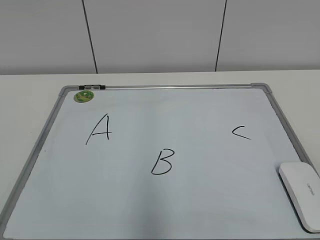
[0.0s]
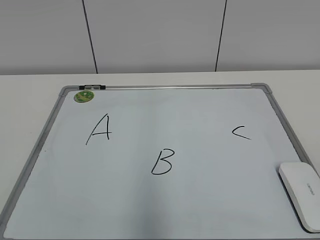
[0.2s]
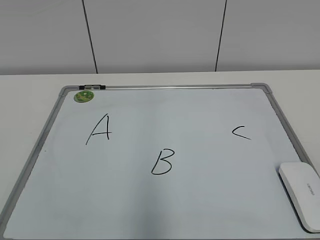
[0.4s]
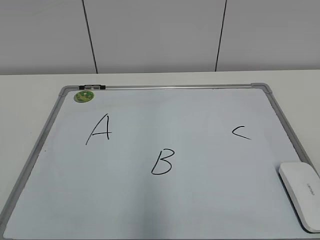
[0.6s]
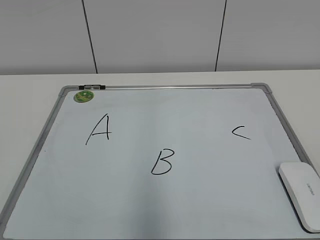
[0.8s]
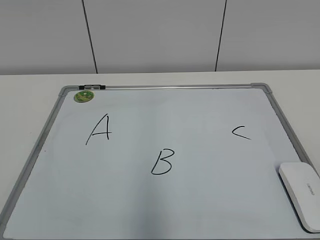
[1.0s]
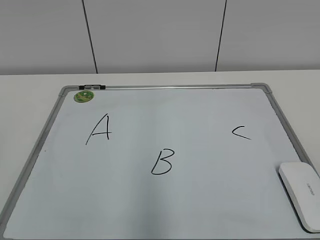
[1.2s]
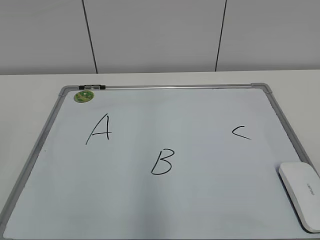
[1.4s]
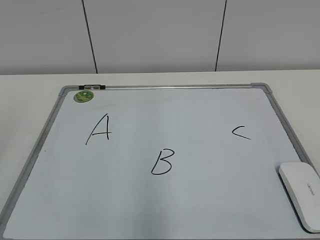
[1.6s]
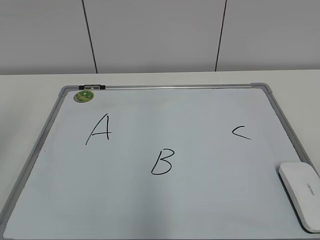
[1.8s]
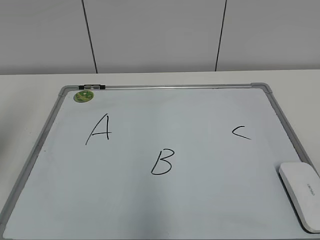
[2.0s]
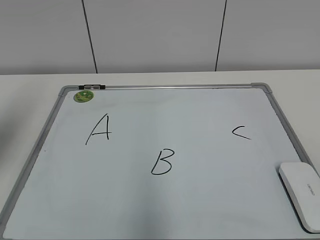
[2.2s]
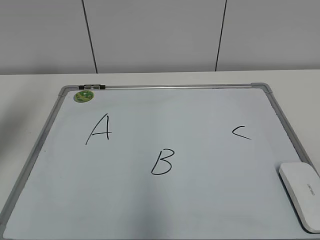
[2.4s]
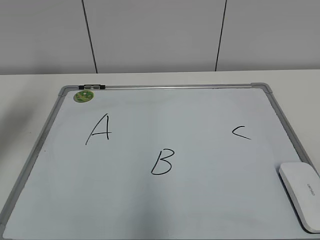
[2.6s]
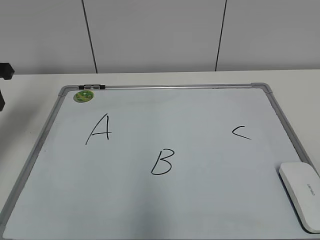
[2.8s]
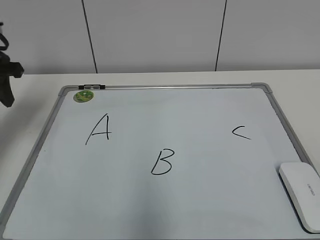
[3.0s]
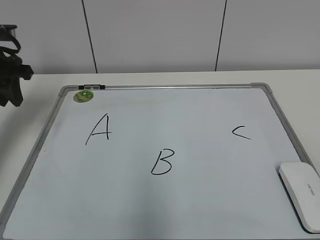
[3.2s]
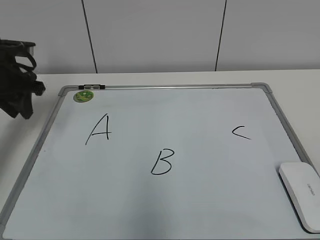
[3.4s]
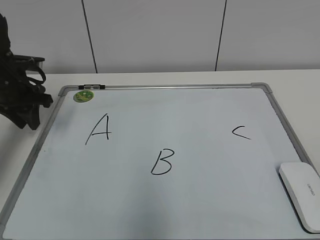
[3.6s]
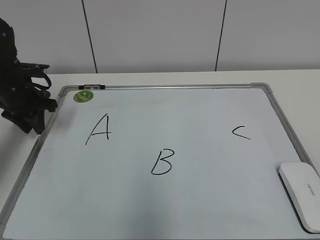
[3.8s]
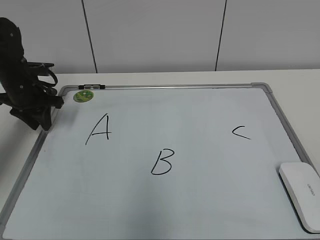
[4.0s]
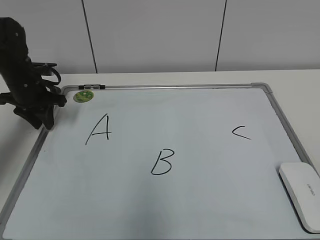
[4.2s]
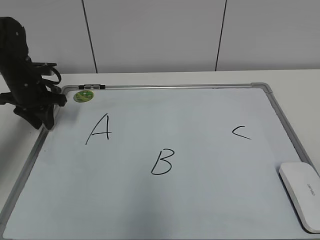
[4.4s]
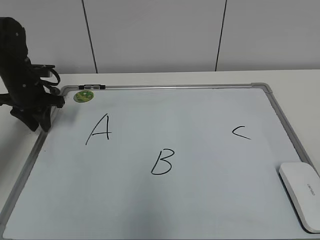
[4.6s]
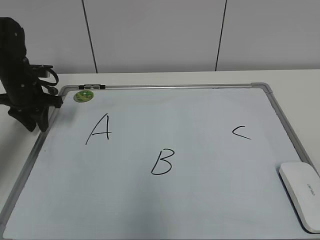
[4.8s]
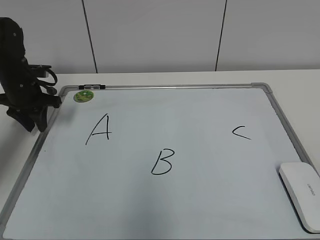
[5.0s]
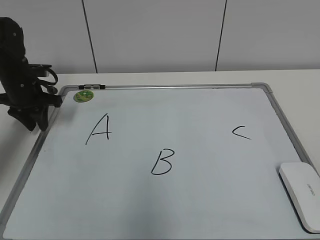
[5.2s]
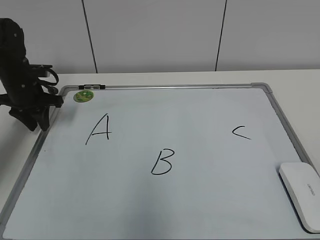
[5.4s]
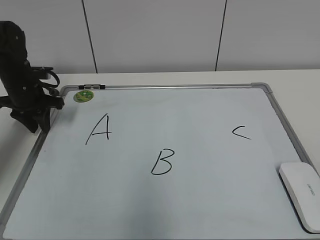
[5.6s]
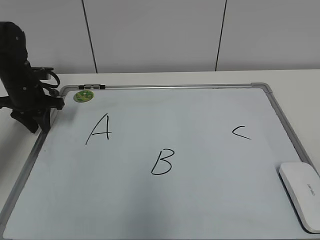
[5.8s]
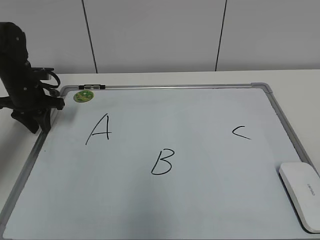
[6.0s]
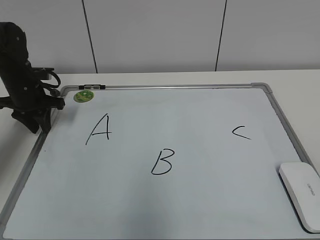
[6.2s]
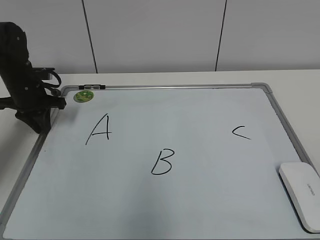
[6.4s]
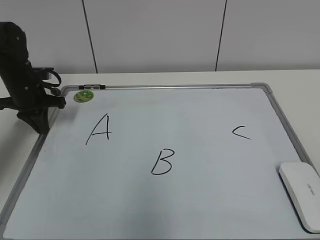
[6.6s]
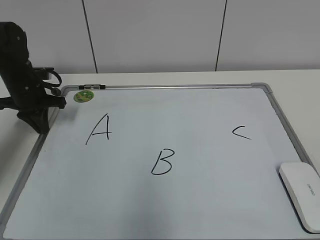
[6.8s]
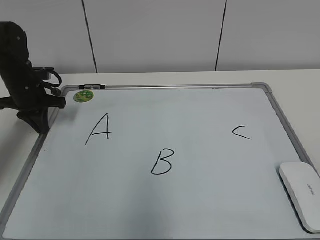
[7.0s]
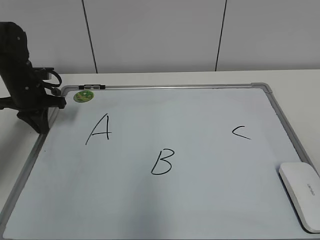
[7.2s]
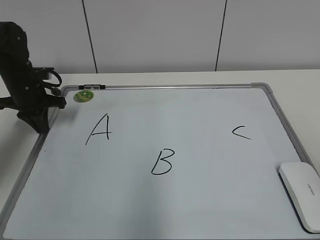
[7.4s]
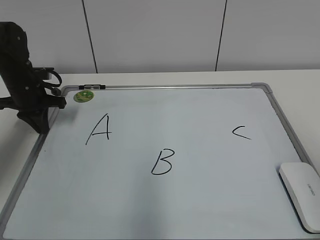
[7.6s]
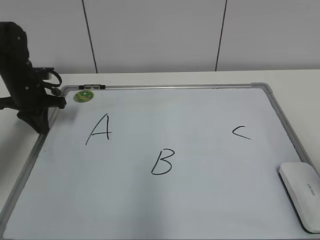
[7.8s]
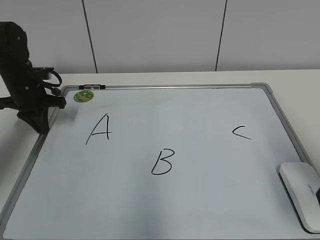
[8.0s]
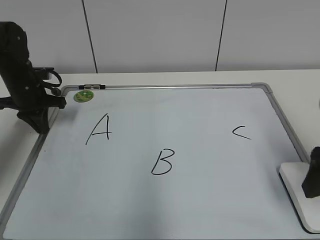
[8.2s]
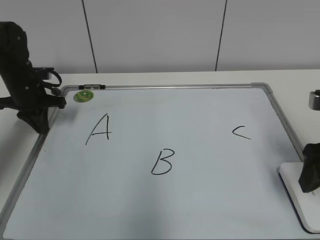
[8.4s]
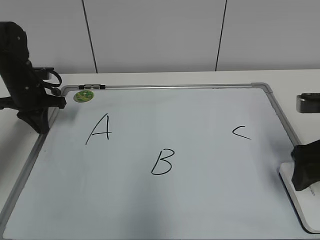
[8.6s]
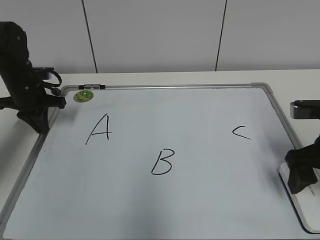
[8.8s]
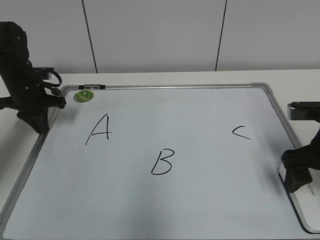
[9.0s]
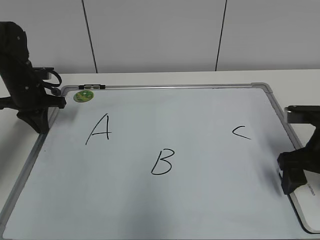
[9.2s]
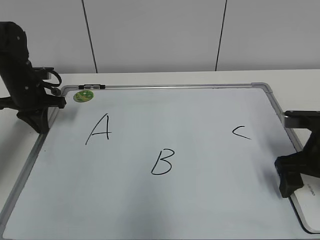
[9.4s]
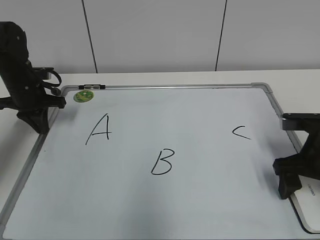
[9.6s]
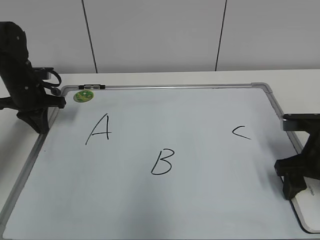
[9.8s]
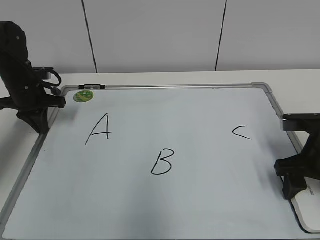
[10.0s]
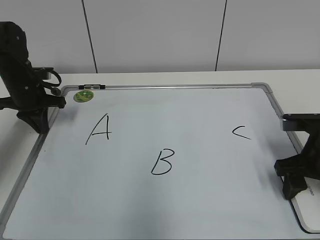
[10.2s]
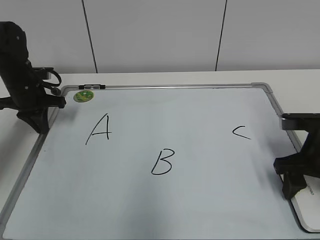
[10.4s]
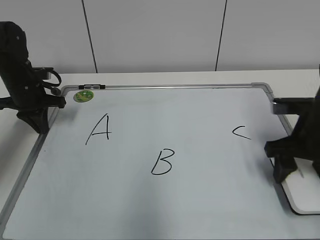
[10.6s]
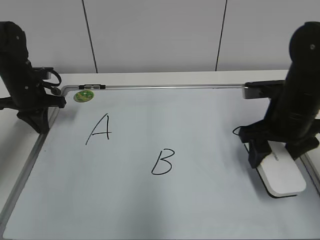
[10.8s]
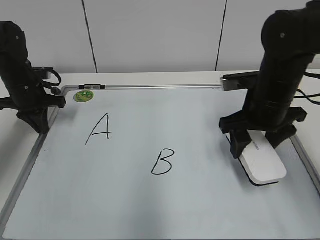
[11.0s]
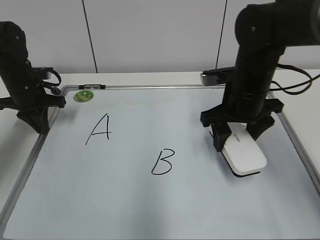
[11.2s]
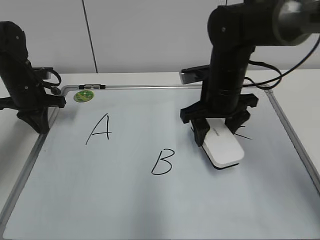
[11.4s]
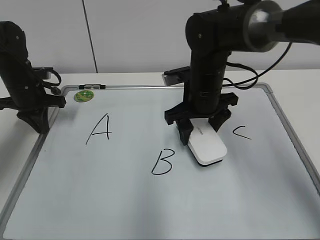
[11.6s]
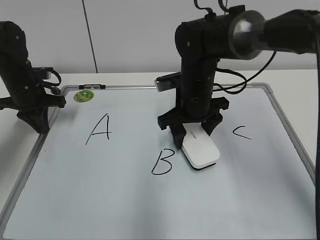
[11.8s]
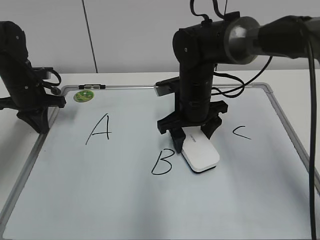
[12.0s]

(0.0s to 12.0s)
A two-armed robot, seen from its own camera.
Task of the whole recording: pick up the eraser on the blackboard and erase the letter "B".
Step, 0.0s - 6.4s: Hold the drawing board steady with your left hand.
Step, 6.6s - 10.2s: Grab the eraser with your right hand.
1.6s - 3.0s: The left gripper moves forward, approximately 30 cm.
3.0s - 4.4s: The left gripper heads downward and forward, covering approximately 15 cm.
4.4s - 6.0s: Both grippers stay put.
6.0s - 7.6s: The left gripper closes up.
7.6s - 9.0s: The right gripper shifts roughly 20 cm forward and downward, and opens up.
9.0s - 10.4s: The right gripper closes up.
10.4s - 12.0s: The right gripper moves to the left and forward, about 20 cm.

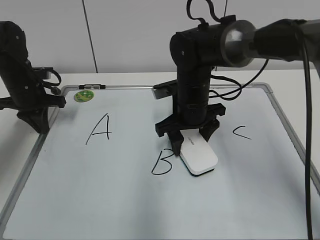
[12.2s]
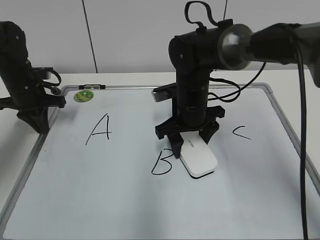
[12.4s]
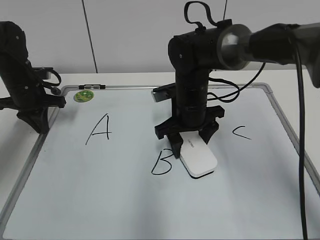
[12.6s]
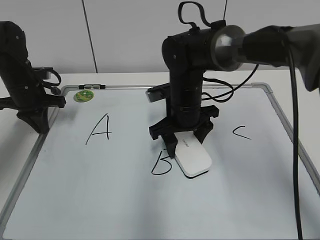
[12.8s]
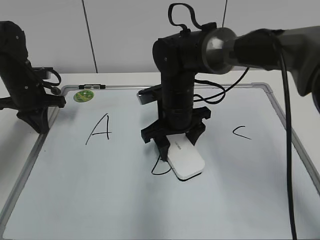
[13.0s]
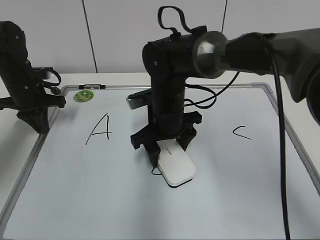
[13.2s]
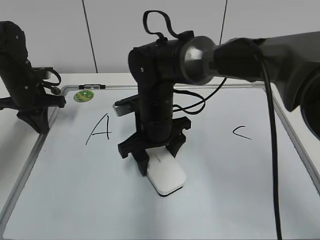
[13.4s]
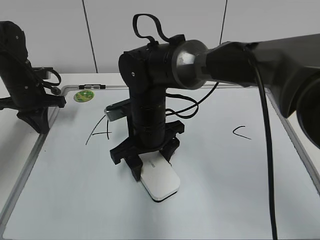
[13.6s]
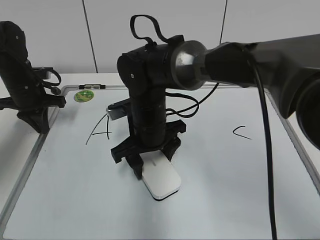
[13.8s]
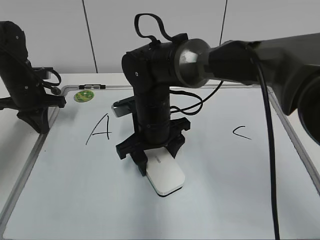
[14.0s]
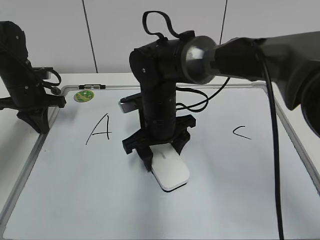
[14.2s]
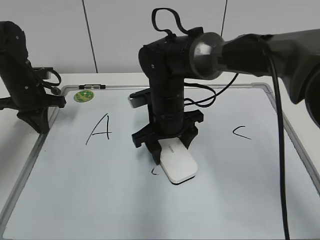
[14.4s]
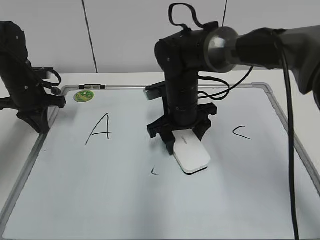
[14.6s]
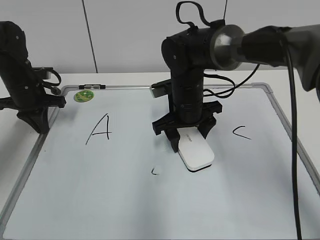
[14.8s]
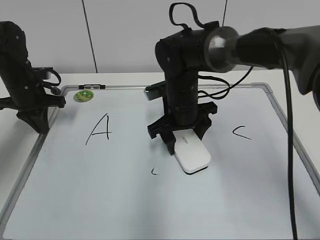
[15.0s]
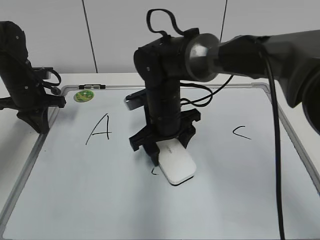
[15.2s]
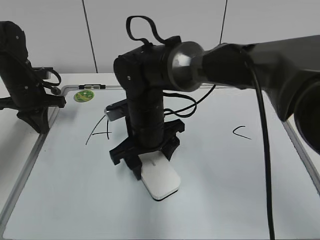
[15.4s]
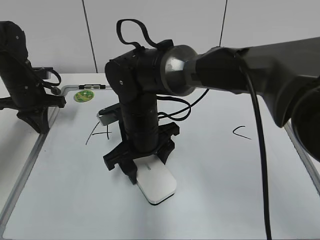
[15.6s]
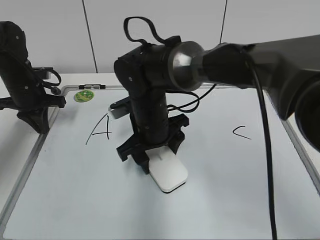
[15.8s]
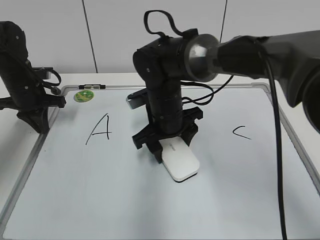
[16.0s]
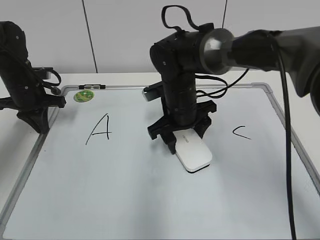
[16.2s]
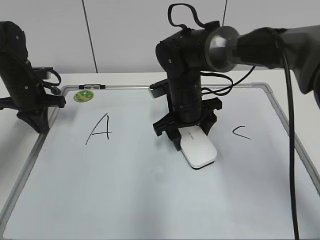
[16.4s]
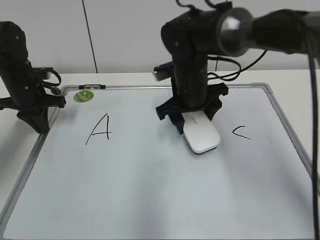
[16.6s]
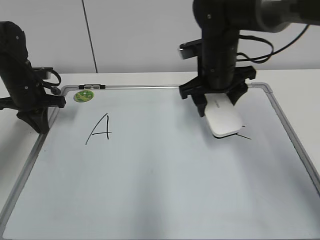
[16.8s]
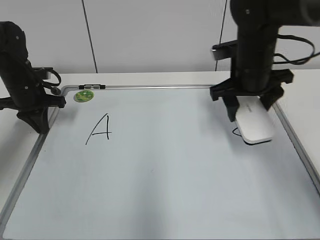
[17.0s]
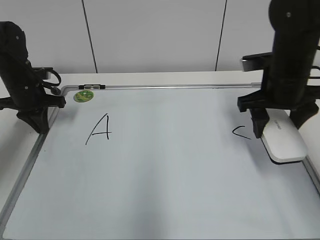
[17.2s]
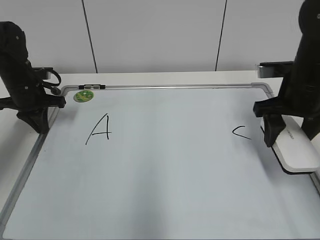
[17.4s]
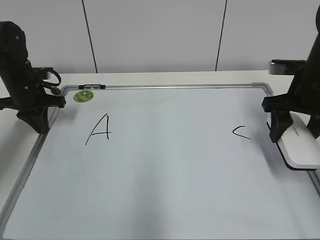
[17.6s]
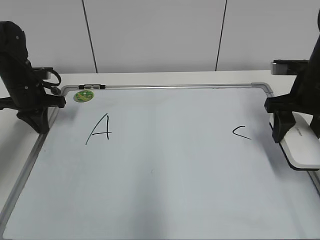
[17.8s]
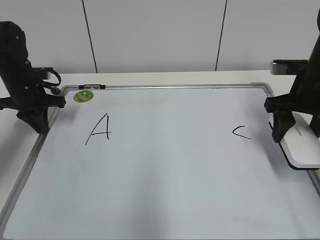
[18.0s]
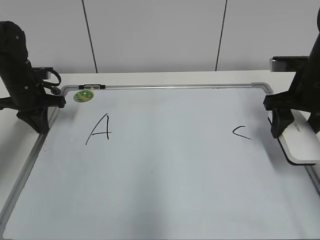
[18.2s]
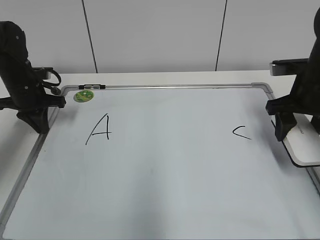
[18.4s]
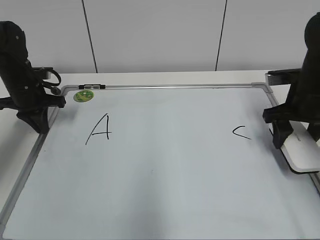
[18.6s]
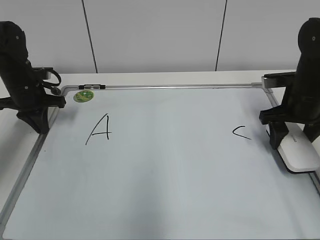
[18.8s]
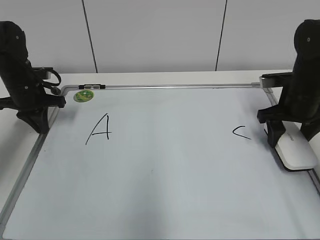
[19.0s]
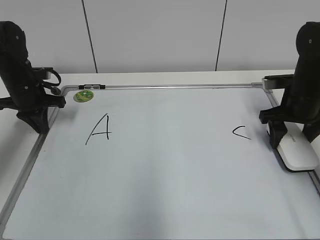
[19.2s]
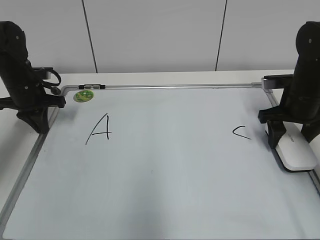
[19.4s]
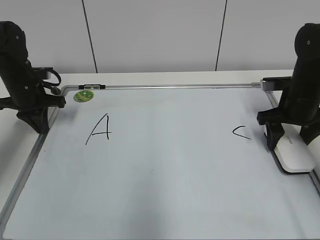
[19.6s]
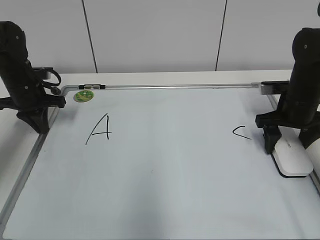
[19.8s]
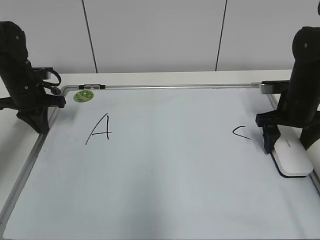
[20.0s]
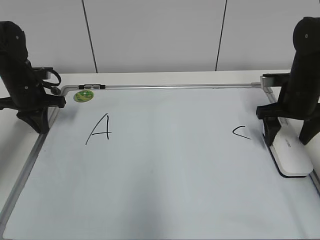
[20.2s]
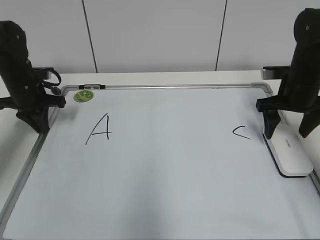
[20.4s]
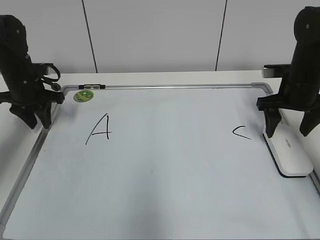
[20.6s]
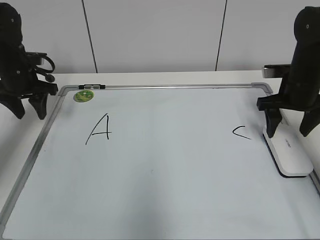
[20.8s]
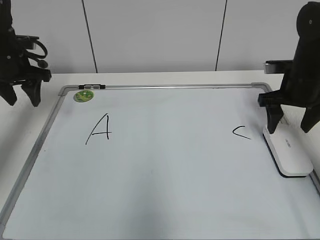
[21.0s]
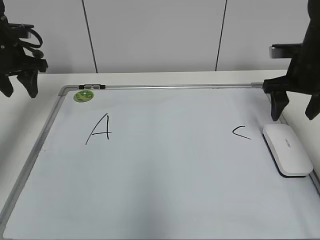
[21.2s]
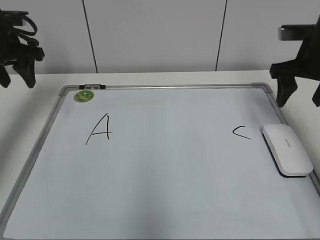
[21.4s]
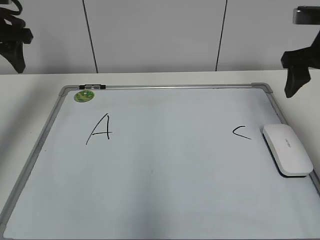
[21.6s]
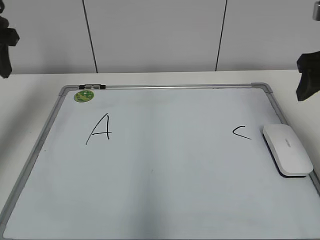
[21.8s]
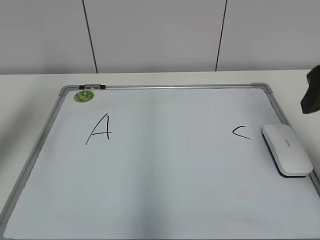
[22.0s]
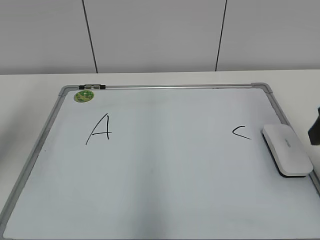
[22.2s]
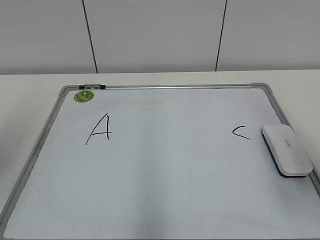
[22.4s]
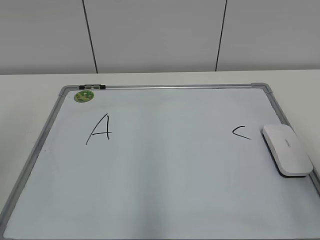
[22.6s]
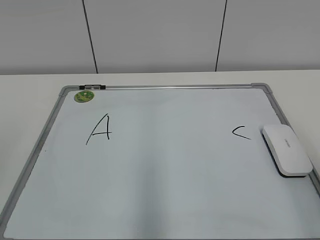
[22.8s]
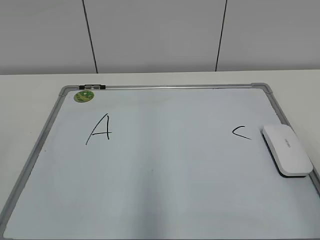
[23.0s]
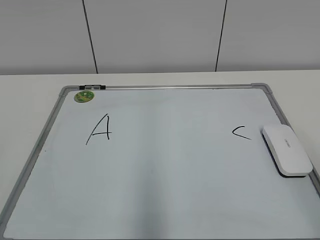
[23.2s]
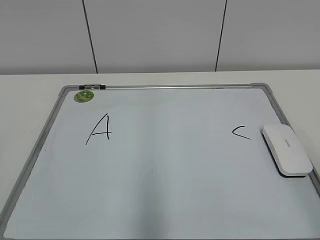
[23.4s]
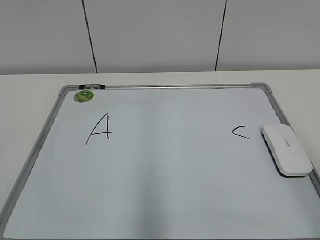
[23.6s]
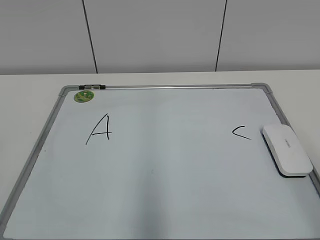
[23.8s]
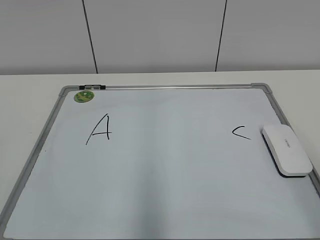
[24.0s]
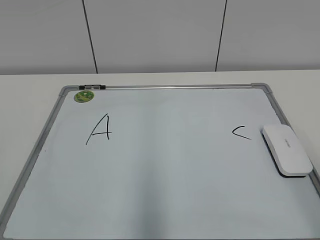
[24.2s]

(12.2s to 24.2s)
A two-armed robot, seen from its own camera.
Task of the whole recording: pick up the eraser on the blackboard and erase the letter "B".
Step, 12.2s - 16.2s: Erase the letter B with your right hand.
Step, 16.4s - 20.0s: Put down the eraser with your right hand.
12.2s - 13.8s: The right gripper moves to the left, approximately 10 cm.
15.2s - 16.6s: The right gripper shifts by roughly 5 cm.
16.6s - 18.2s: The right gripper goes roughly 20 cm to the right.
18.2s - 19.8s: The right gripper travels downward by some 5 cm.
19.8s - 21.2s: Both grippers travel together upward, some 10 cm. The left gripper opens.
21.2s - 22.6s: The grippers both shift backward by some 30 cm.
